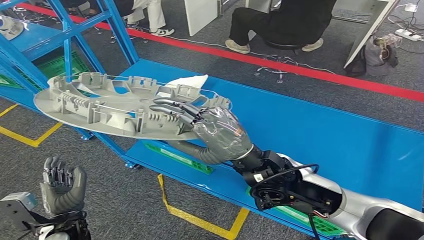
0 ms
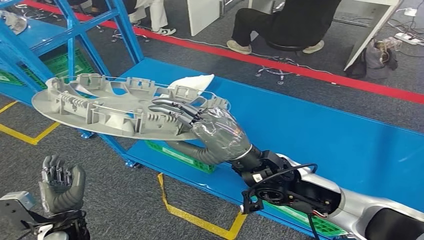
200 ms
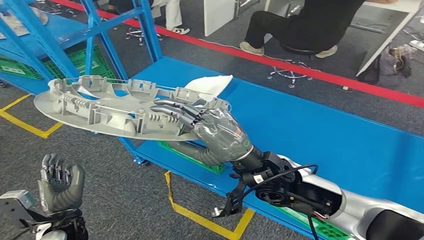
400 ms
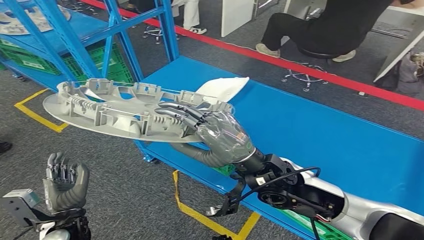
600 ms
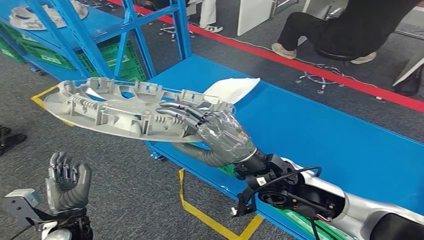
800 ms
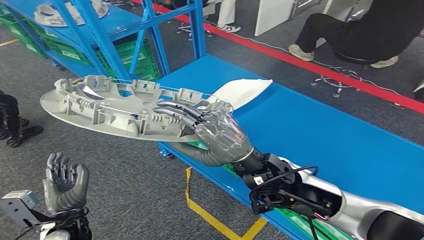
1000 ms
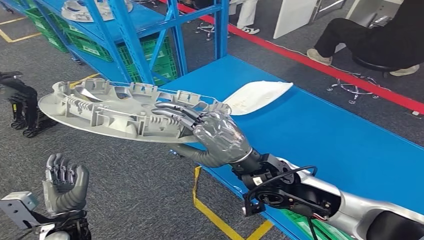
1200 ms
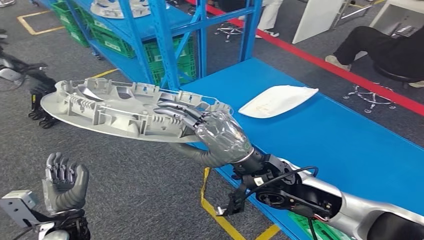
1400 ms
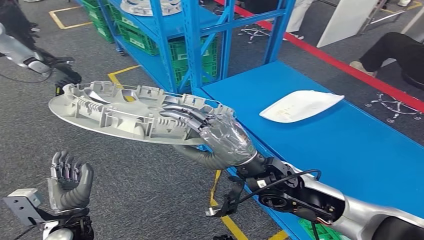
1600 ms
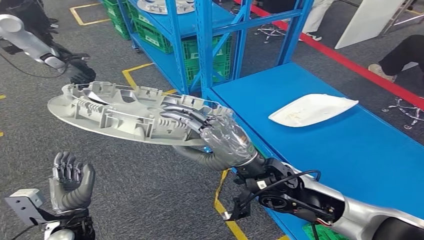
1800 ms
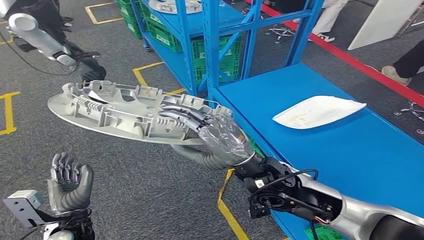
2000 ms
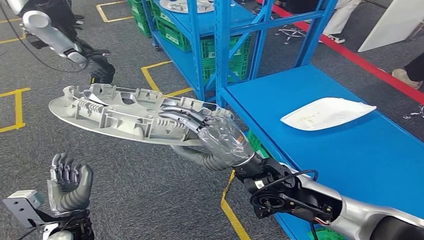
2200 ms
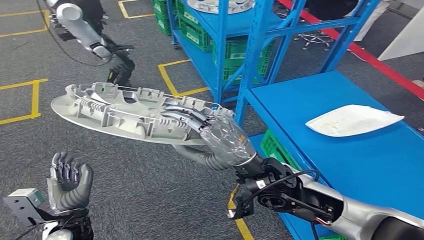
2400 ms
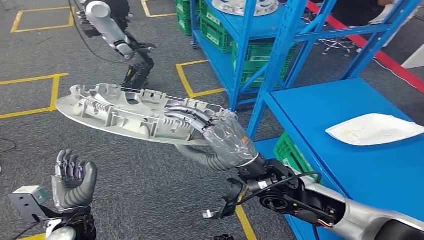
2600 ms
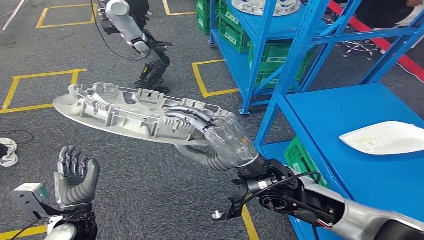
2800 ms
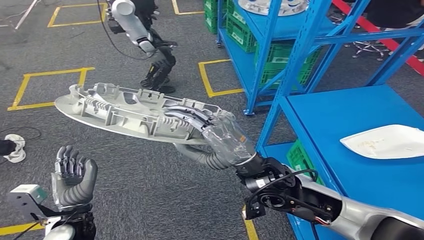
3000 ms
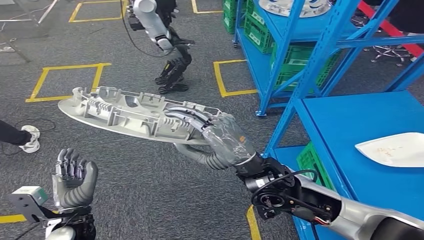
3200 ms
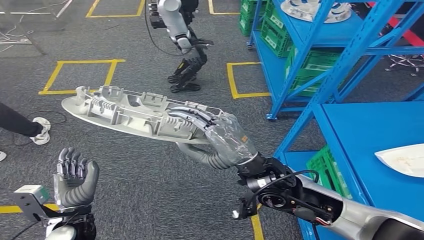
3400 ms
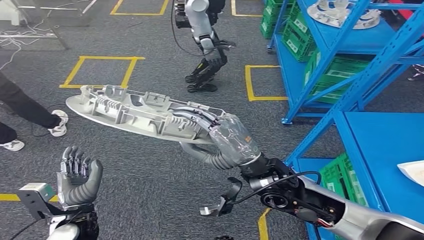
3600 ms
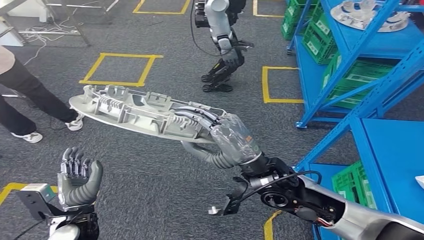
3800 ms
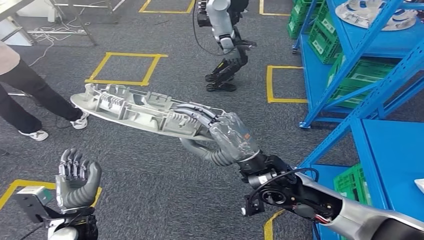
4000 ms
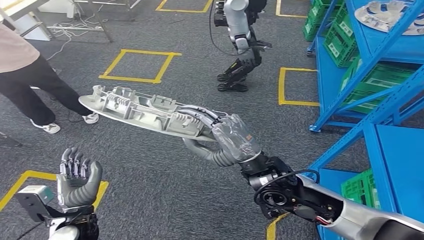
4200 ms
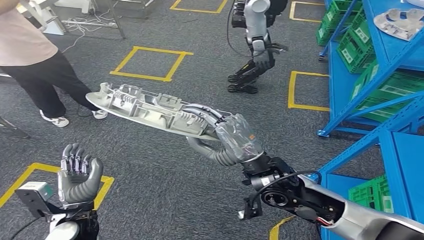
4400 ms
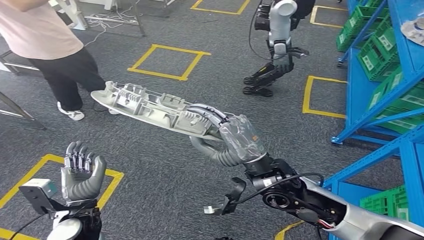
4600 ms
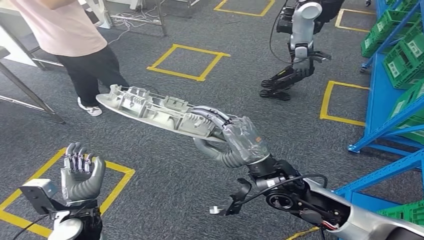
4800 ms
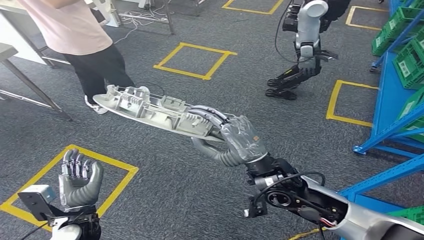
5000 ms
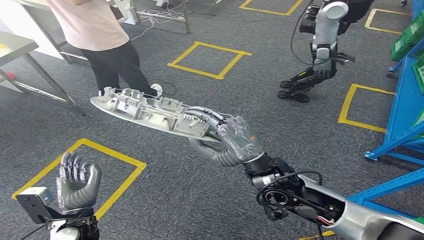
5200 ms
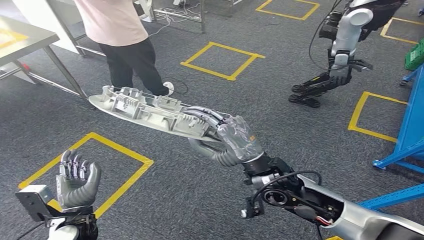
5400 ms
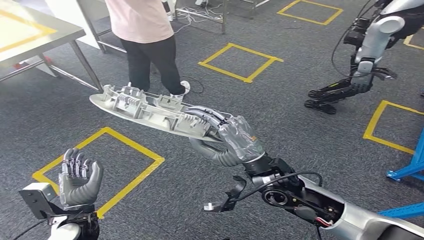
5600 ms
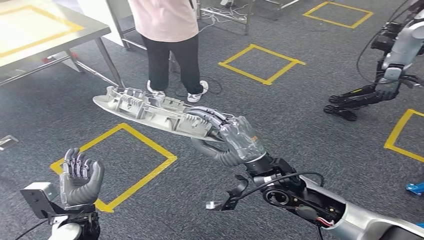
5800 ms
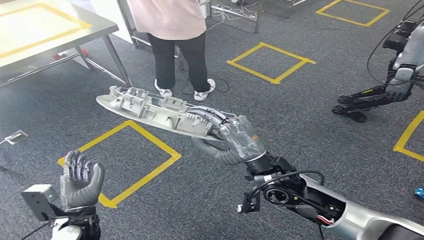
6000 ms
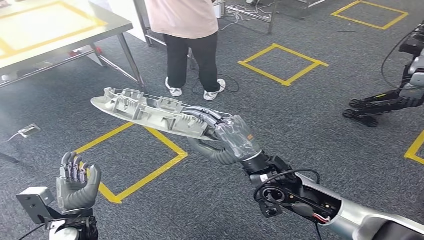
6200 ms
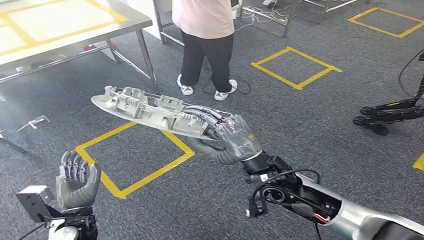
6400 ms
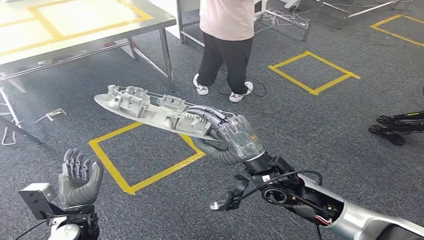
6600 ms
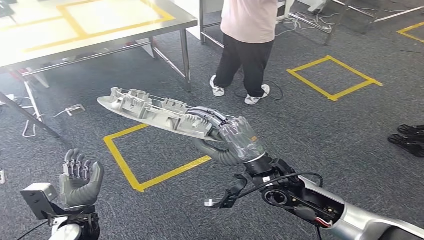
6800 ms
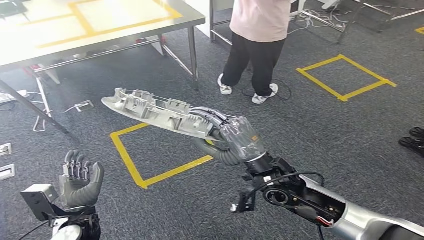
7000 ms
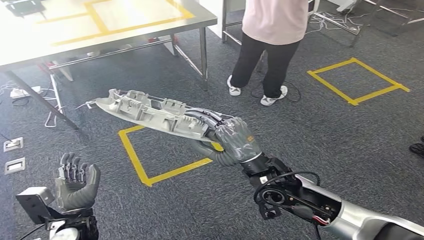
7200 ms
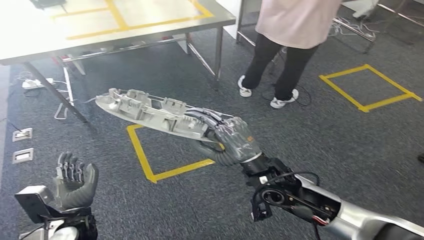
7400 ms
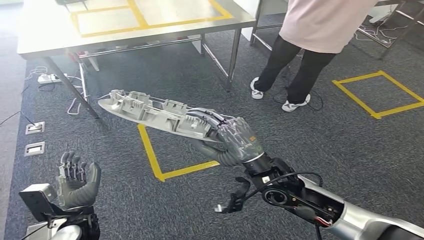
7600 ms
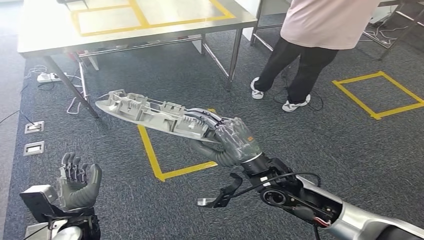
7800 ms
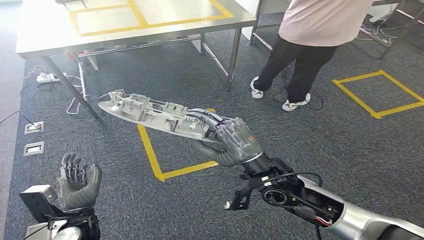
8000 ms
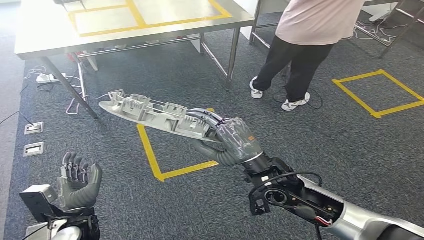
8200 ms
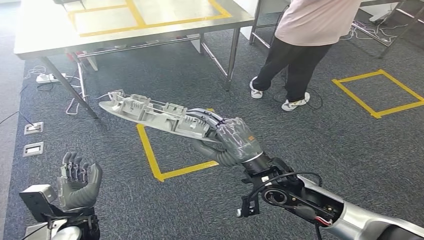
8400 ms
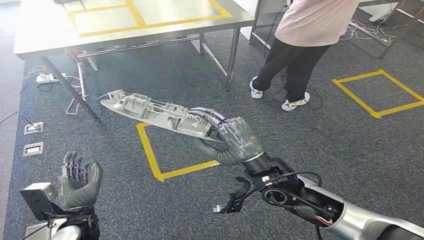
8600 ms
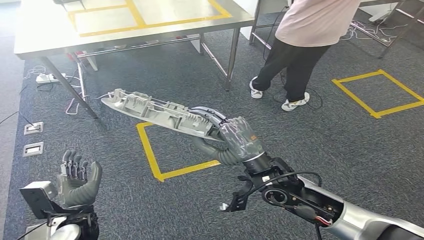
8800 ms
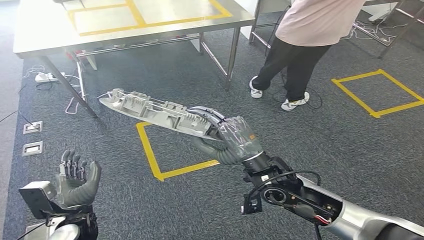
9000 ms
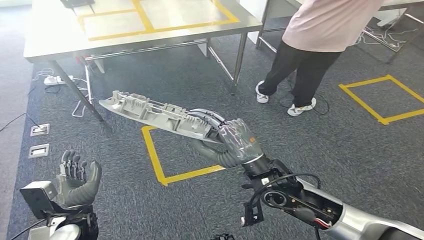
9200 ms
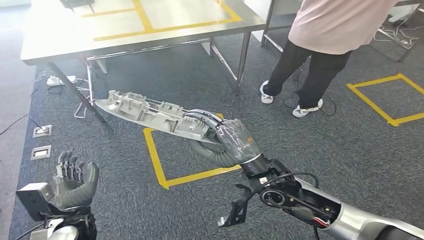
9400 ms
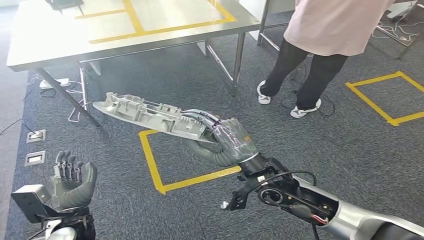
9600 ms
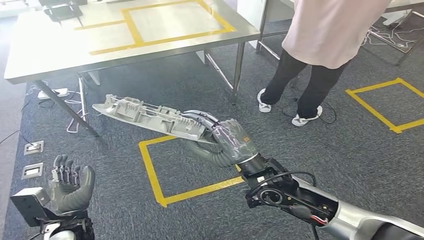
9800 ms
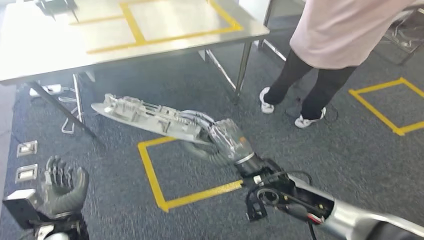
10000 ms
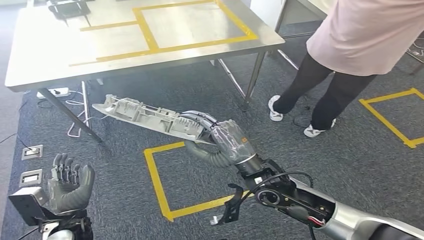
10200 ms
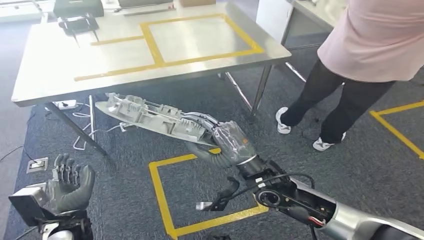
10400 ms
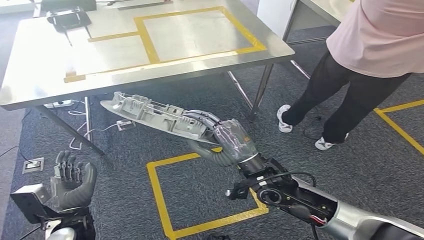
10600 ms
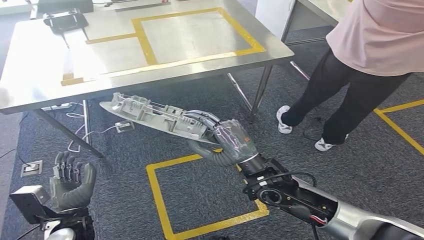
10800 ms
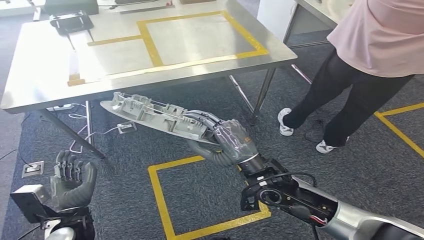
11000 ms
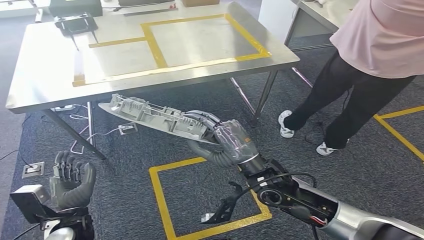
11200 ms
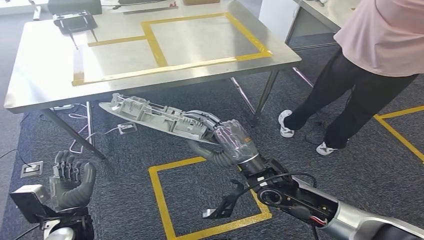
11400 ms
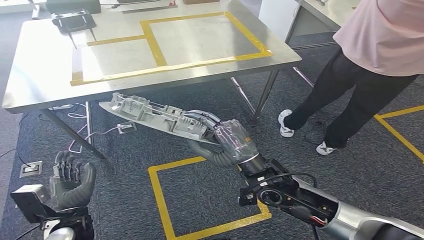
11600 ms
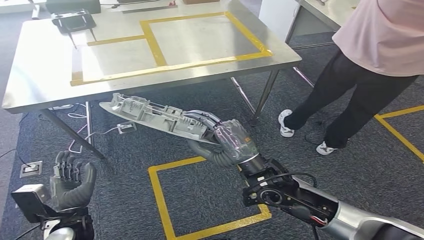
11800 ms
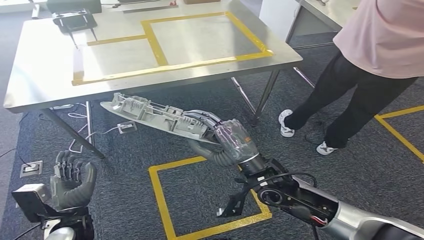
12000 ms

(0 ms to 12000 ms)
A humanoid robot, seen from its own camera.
7600 ms - 9000 ms: Both hands stay put.

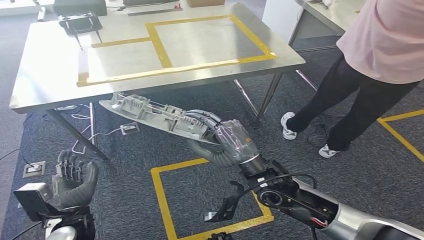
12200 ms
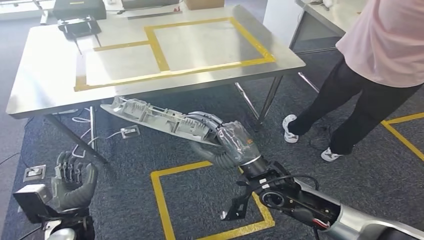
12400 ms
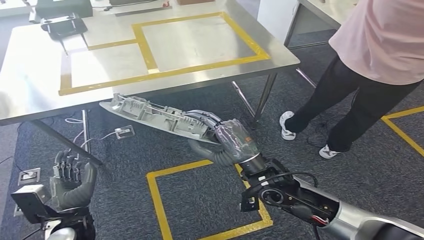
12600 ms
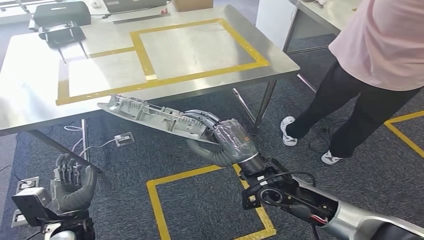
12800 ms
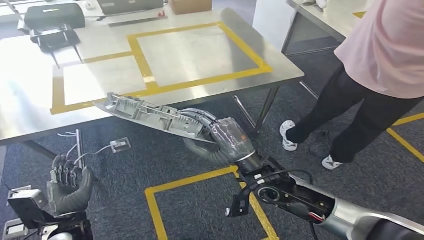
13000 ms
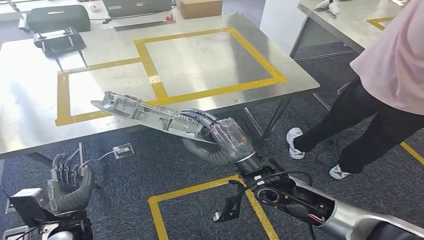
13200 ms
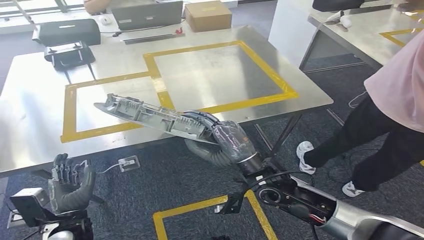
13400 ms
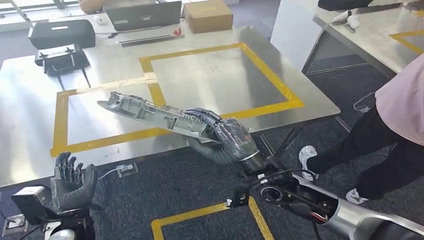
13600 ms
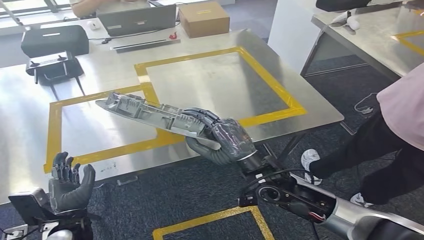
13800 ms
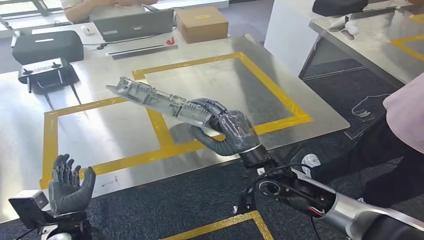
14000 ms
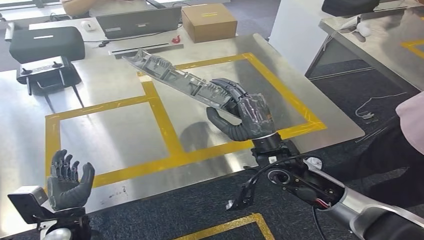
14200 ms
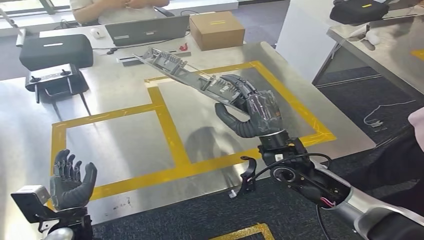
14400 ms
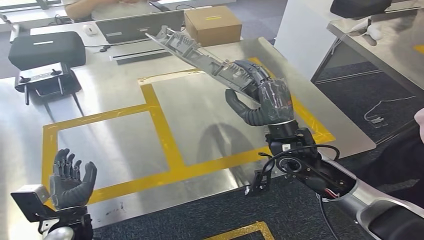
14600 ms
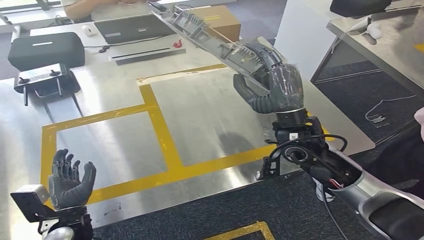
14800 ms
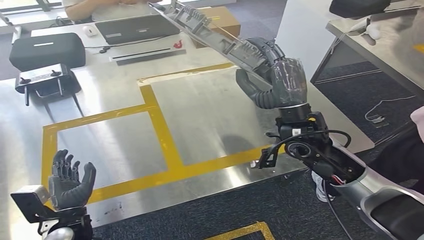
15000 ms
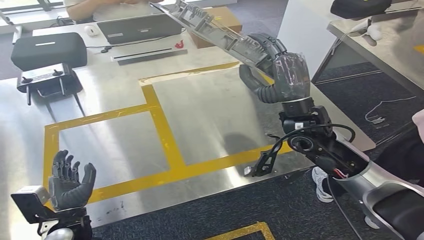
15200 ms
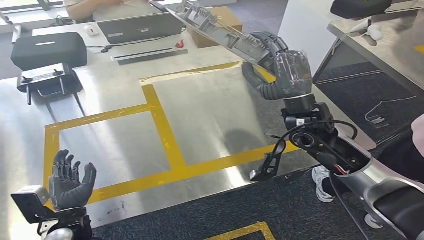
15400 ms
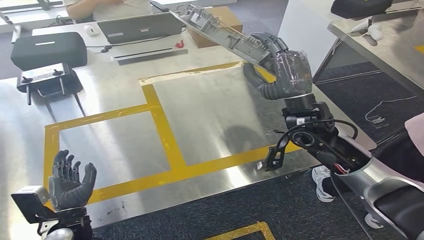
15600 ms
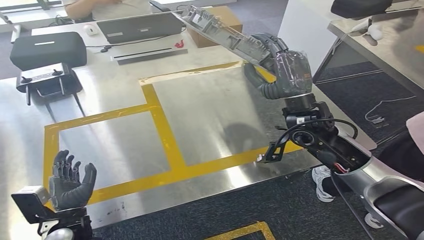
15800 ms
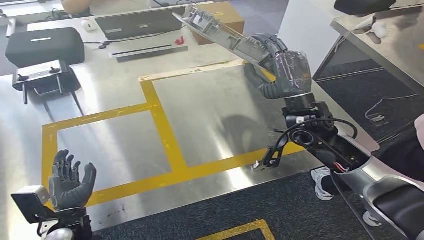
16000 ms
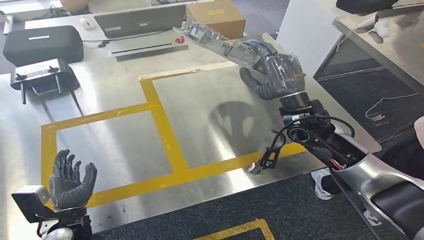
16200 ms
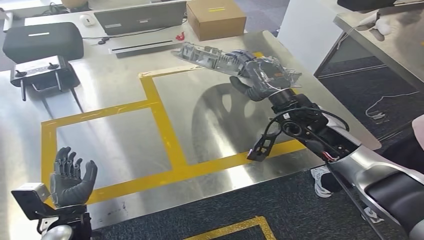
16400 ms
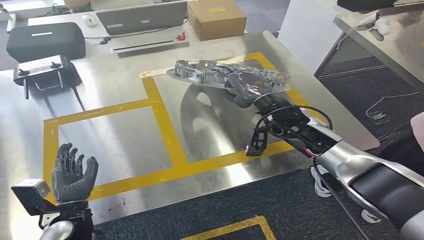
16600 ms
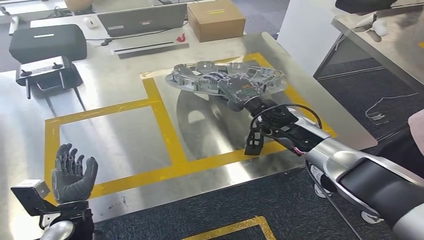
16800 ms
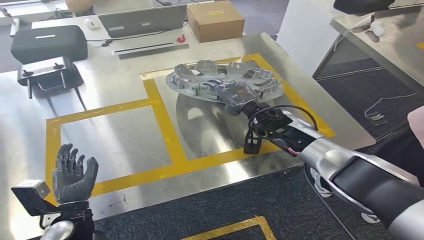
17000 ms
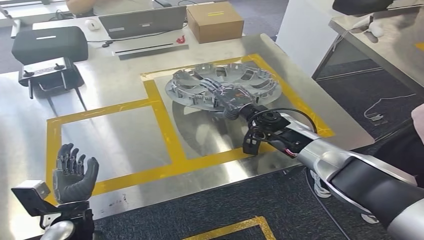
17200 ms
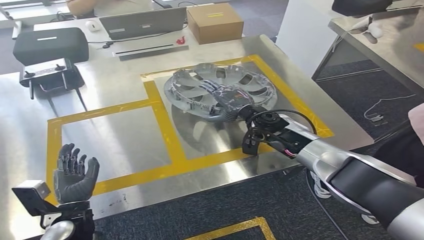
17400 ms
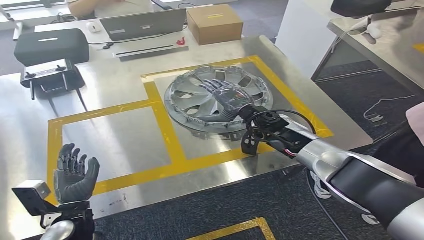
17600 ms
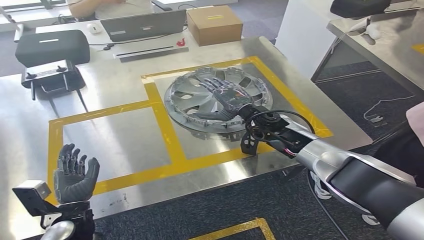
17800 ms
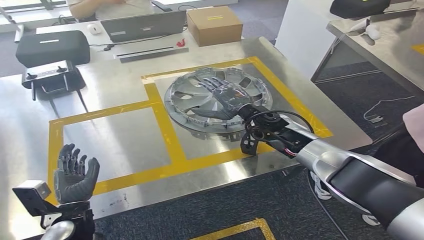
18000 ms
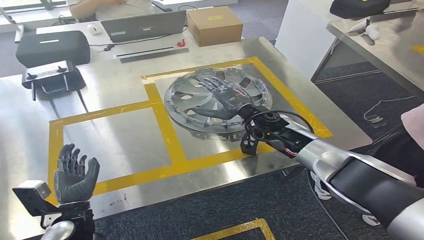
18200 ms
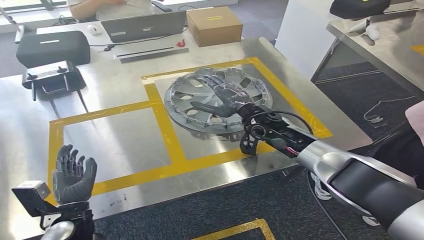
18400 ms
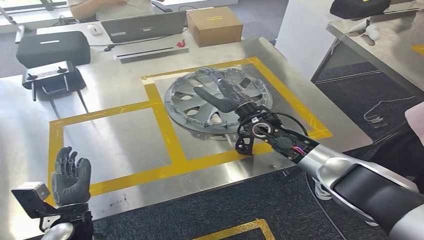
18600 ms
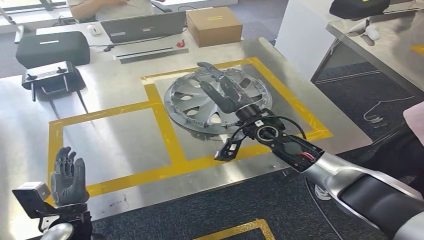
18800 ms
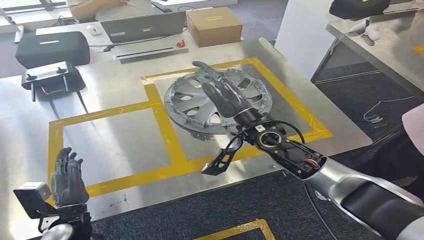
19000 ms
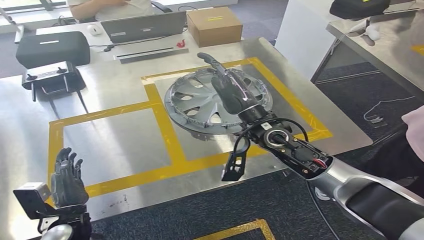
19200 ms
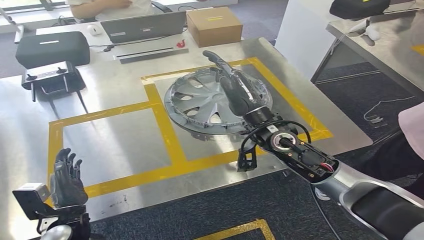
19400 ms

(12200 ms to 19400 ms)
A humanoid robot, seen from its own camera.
Step, 14200 ms - 19200 ms: Insert the small parts into the corresponding slots on the workbench.
18000 ms - 19400 ms: The right hand is displaced backward and upward by roughly 10 cm.
